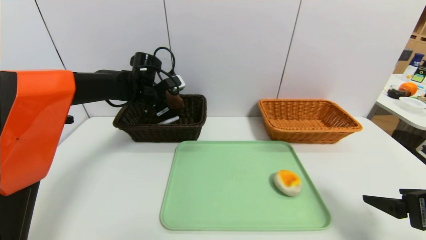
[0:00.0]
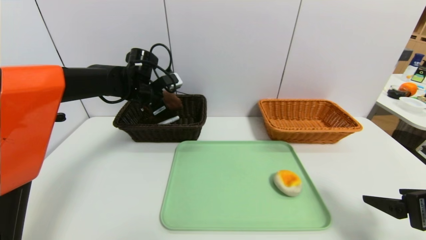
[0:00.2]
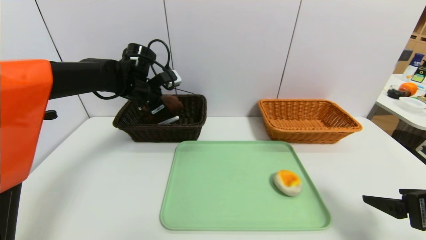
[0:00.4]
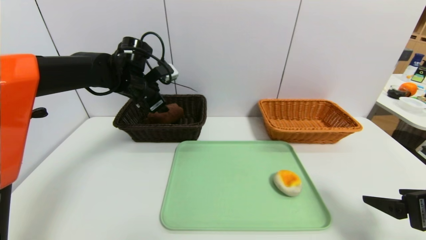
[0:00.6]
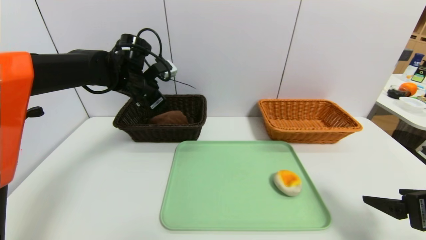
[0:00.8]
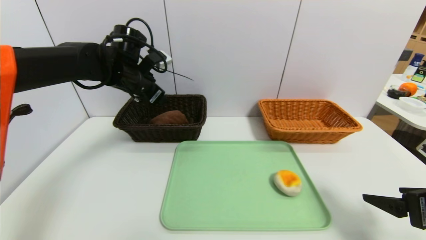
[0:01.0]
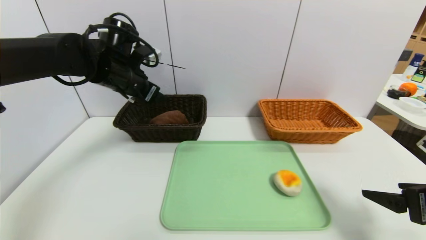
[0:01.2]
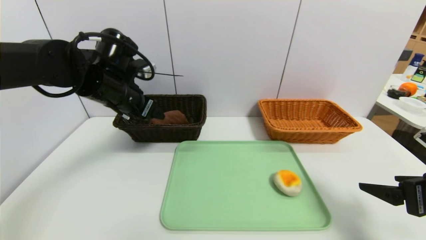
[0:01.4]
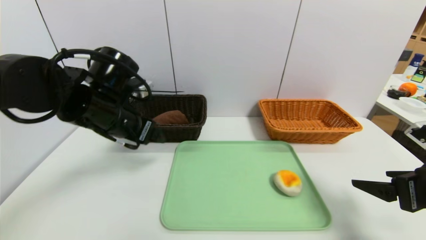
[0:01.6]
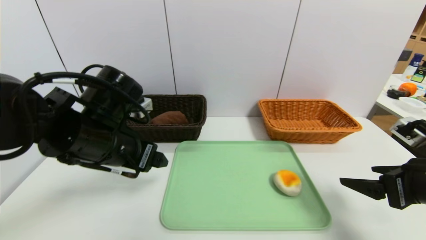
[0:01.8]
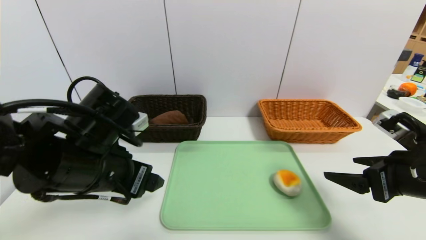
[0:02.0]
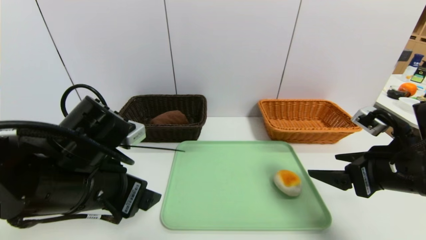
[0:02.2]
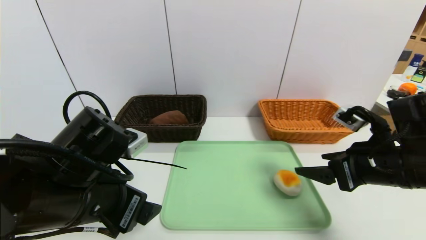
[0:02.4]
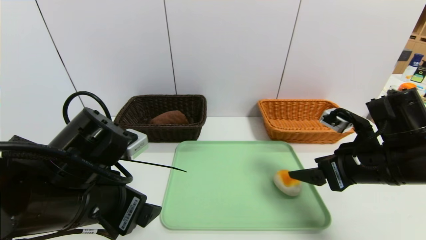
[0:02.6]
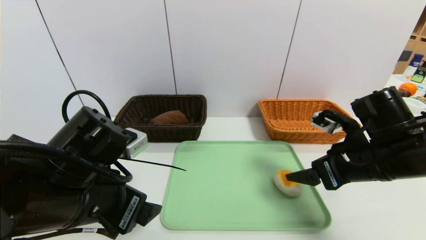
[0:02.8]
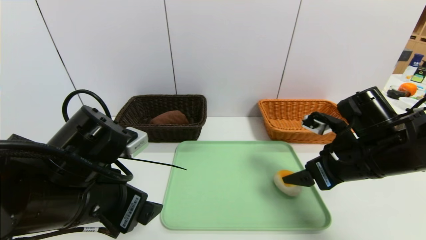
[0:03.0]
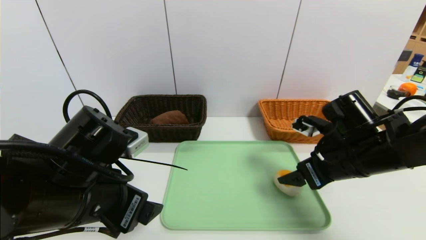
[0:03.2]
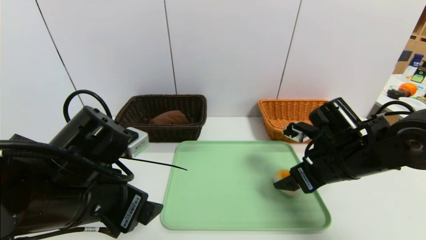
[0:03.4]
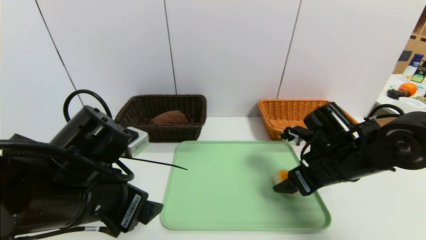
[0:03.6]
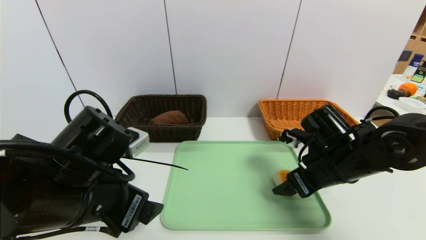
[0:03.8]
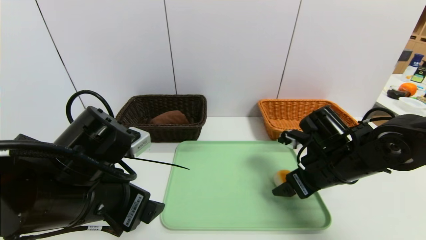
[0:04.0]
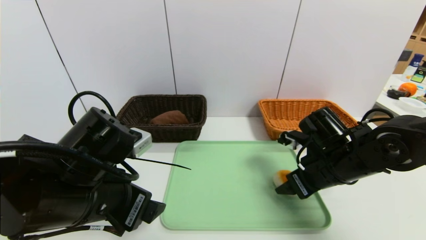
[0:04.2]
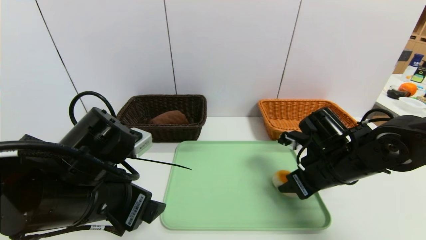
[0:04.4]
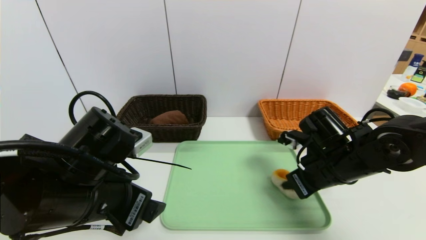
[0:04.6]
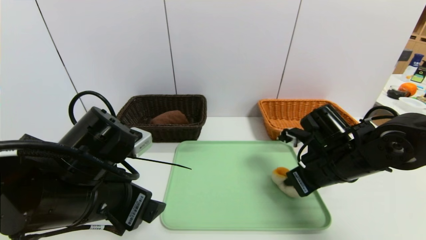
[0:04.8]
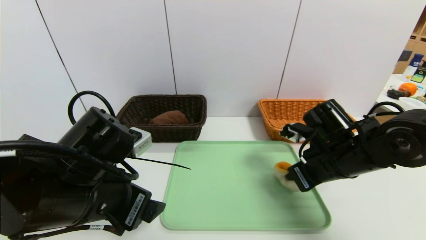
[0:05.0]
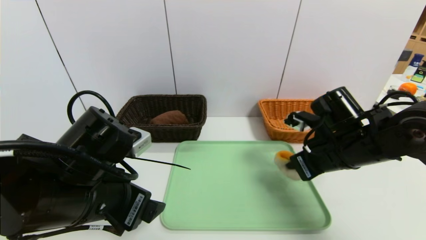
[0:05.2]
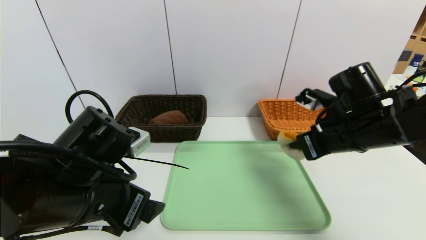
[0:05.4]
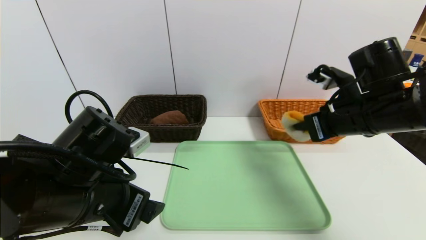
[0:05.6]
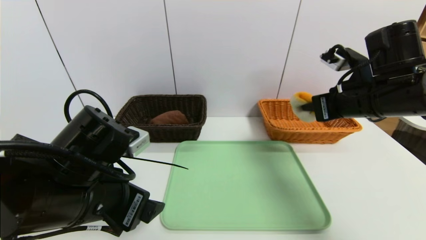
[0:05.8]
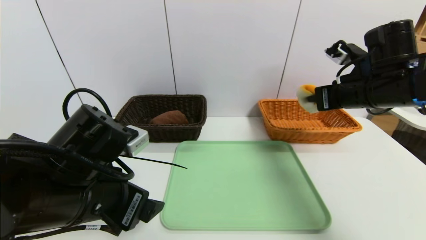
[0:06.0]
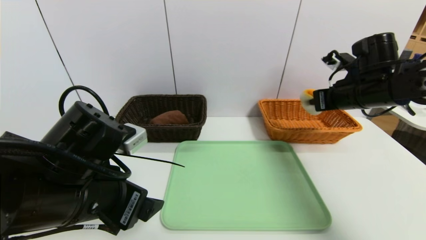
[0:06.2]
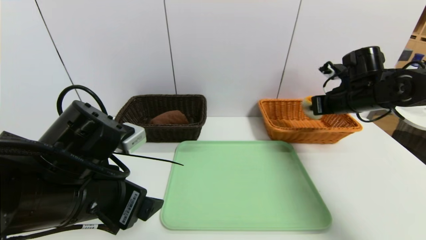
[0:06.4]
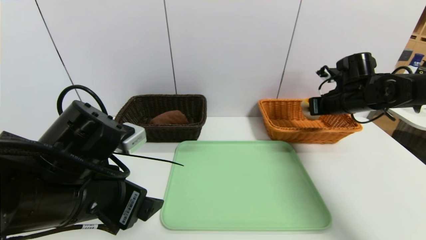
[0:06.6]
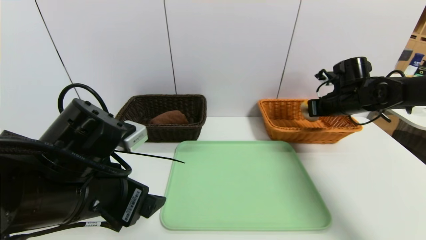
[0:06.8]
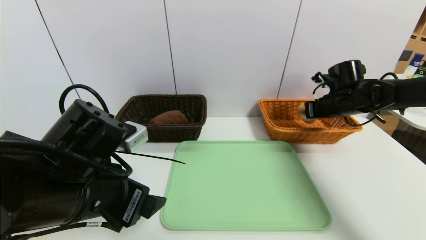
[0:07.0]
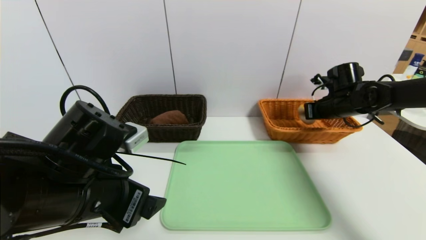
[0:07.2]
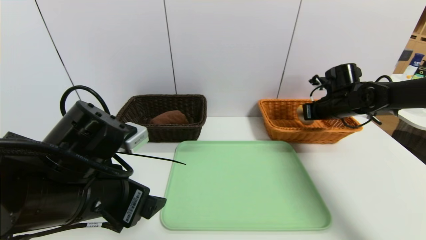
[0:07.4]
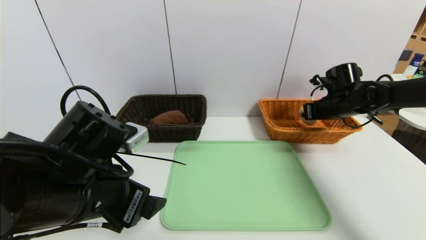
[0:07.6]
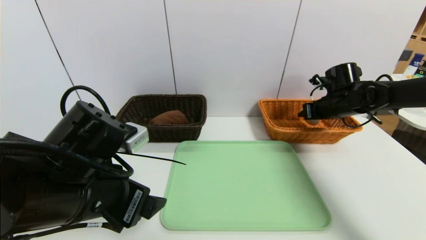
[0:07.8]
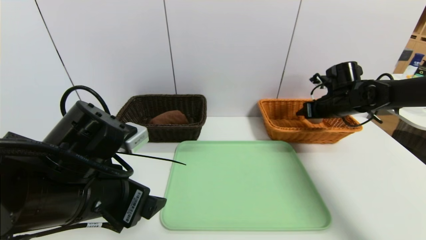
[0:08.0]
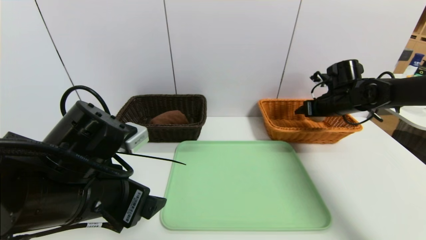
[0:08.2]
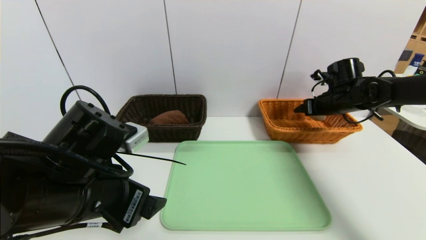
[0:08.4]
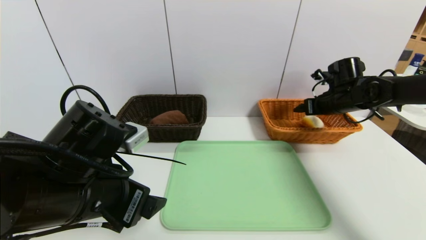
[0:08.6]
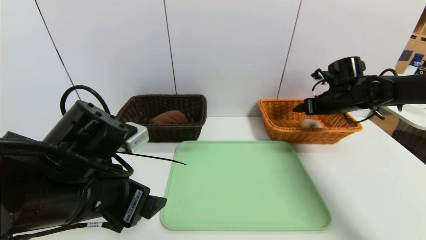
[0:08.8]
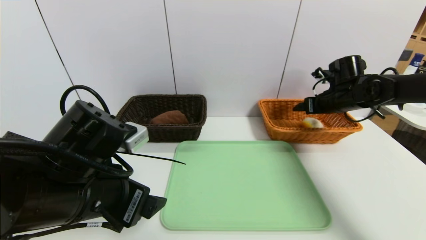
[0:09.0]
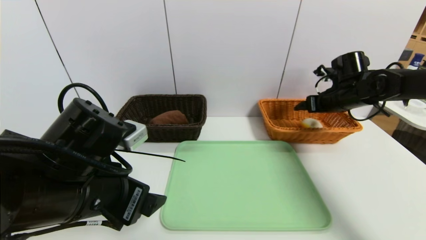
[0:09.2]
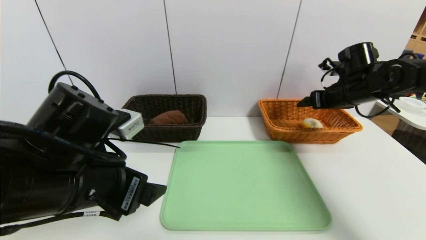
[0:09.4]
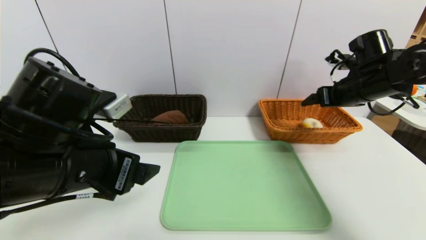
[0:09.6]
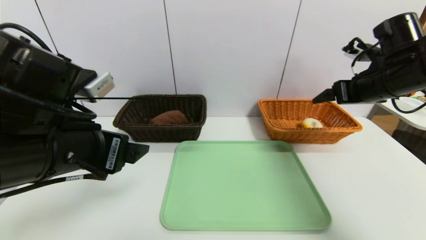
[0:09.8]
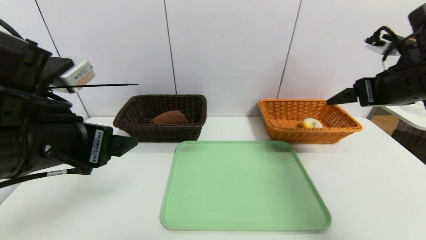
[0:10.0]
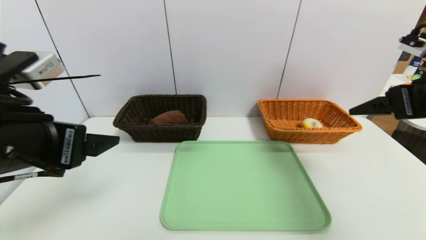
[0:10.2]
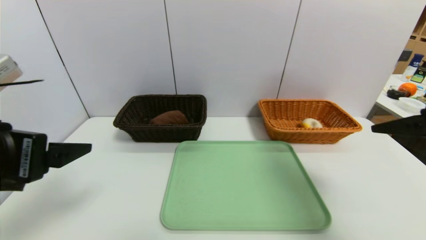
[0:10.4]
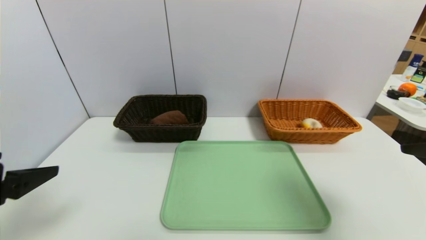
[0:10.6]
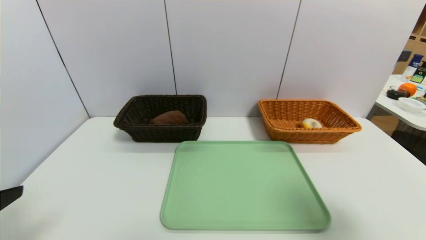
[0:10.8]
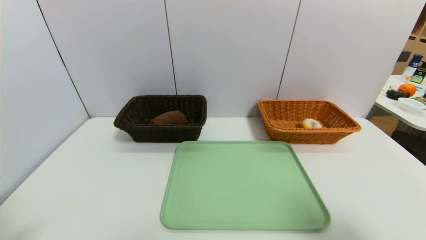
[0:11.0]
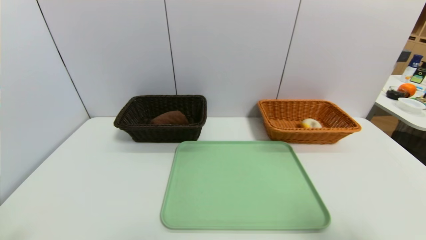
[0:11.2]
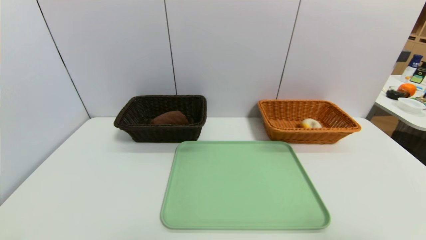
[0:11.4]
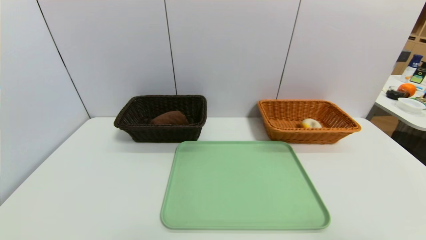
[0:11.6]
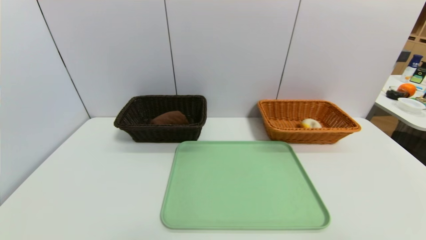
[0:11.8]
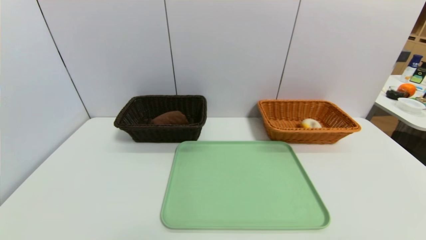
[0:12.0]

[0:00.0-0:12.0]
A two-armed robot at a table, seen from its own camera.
Task of the whole recording: place the food in the right basket with the right gripper, and place the non food items in the left basket with the left gripper.
Step, 0:01.2 to 0:09.2: Grasp the egg yolk pastry and put it in the right basket.
0:00.0 to 0:01.6: The left gripper goes roughly 20 cm backward, and opens.
0:01.6 to 0:03.0: The left gripper heads backward, covering roughly 10 cm; the right gripper goes approximately 15 cm to the left and forward.
0:03.0 to 0:04.4: The right gripper ends up approximately 5 cm from where it was, and closes its fingers.
0:04.4 to 0:06.0: The right gripper goes approximately 15 cm upward, to the right and forward, and closes.
0:06.0 to 0:07.6: The right gripper shifts some 15 cm forward and downward.
0:07.6 to 0:09.0: The right gripper opens.
0:09.0 to 0:10.4: The right gripper heads backward and upward, covering roughly 30 cm. Meanwhile the left gripper shifts roughly 10 cm to the left and upward.
0:10.4 to 0:12.0: The right gripper is displaced backward by approximately 20 cm. Meanwhile the left gripper goes roughly 20 cm backward, downward and to the left.

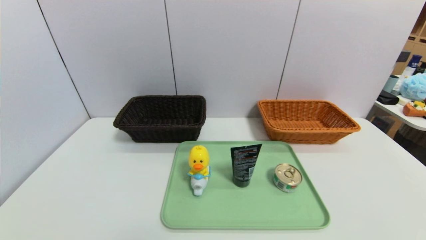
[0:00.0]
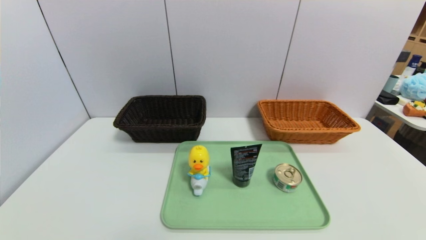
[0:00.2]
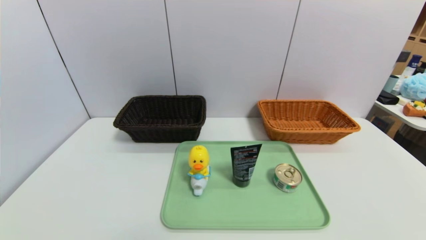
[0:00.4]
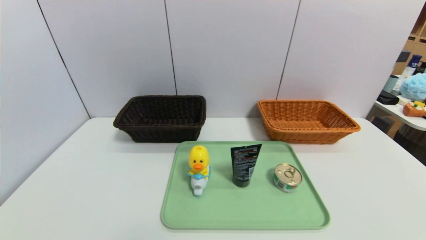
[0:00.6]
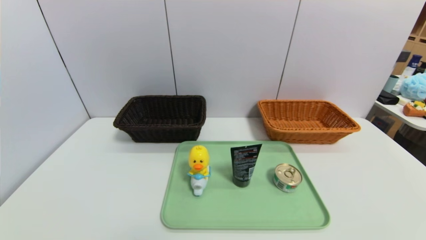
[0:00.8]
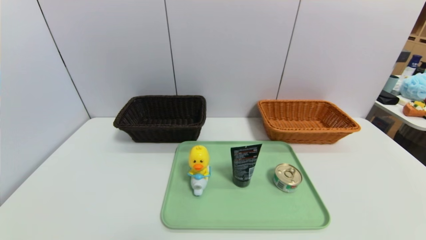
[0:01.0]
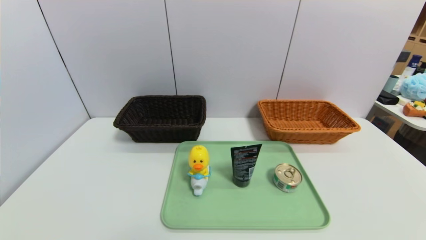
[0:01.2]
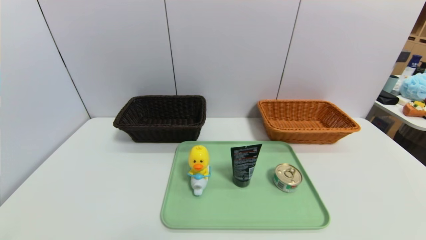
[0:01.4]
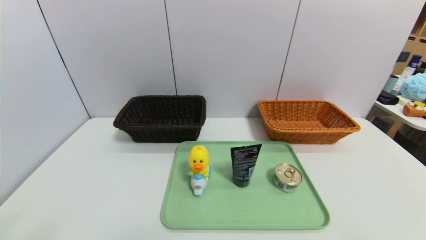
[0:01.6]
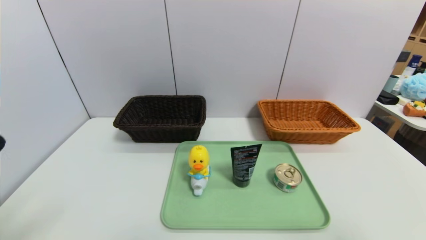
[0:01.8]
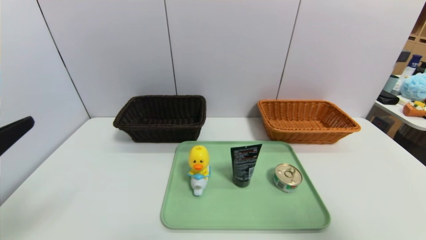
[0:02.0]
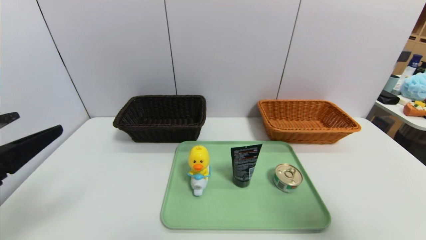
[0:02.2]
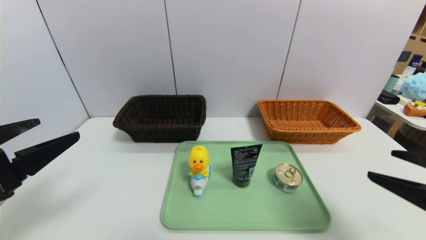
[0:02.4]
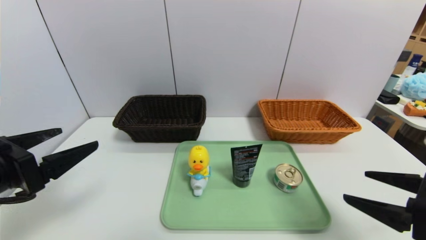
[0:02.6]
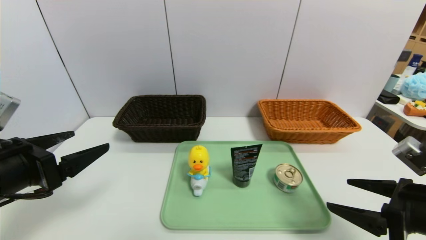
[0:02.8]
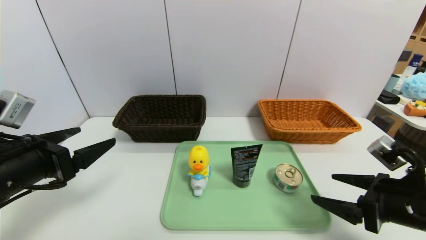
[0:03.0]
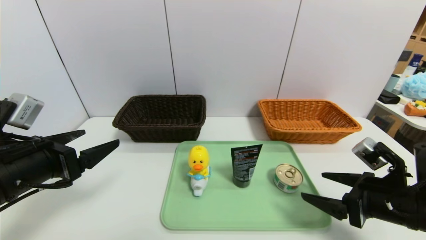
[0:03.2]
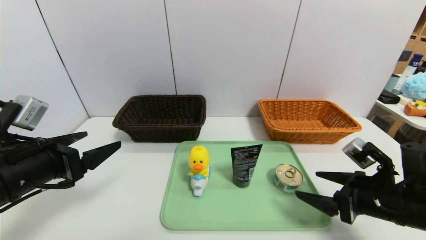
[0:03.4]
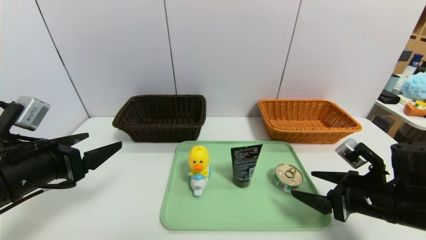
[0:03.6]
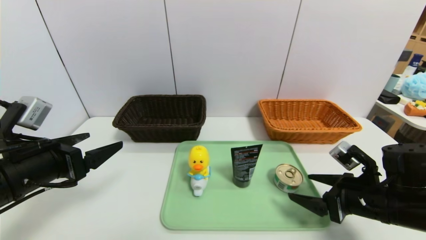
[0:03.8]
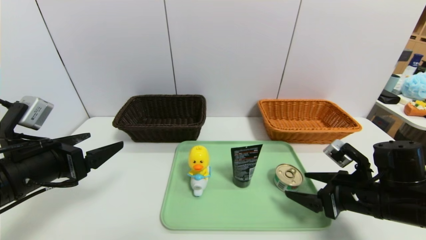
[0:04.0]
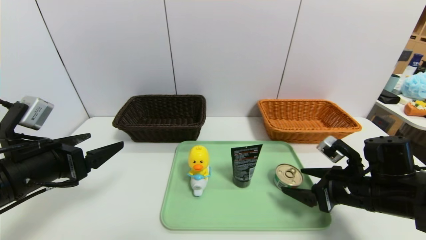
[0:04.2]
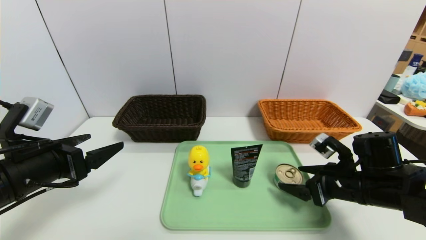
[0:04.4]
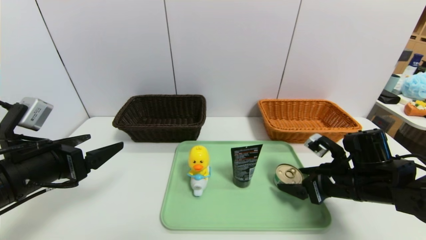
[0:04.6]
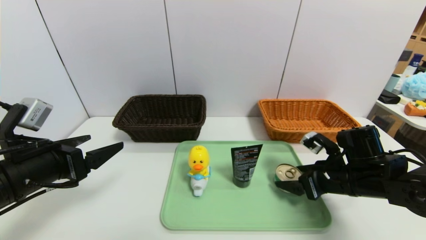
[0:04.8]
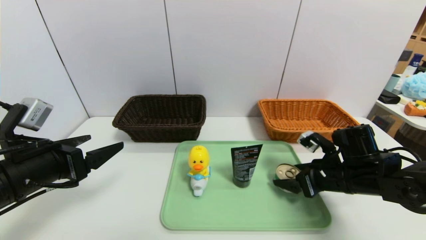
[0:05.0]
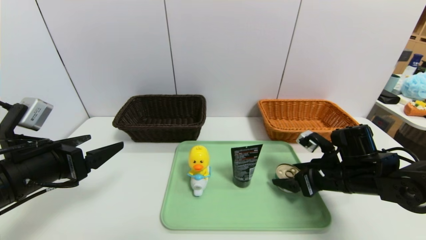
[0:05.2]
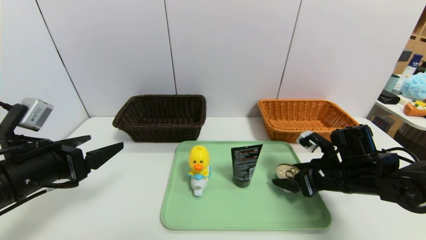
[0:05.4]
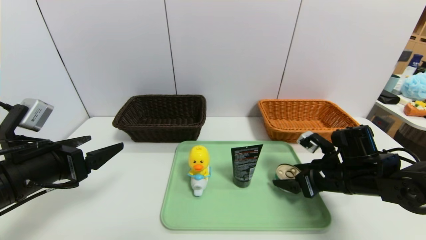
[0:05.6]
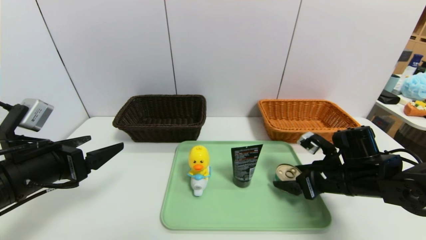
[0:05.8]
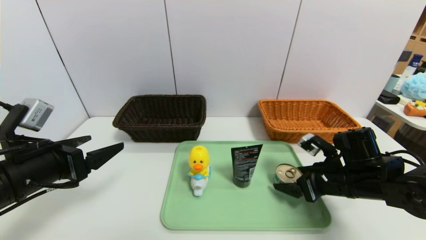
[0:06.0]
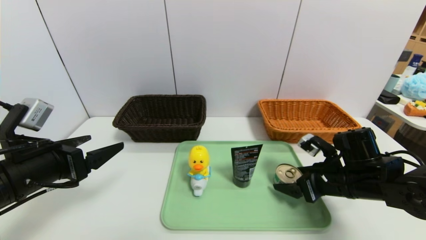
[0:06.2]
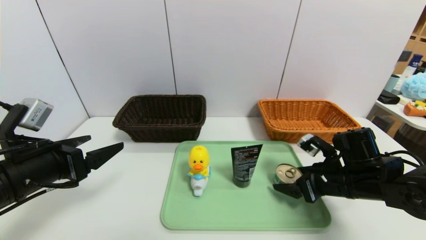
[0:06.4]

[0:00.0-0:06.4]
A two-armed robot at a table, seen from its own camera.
Task of the whole recording: place the food in the right basket with the right gripper, and place the non food items in the left basket with the left gripper.
0:01.6 to 0:03.2: The right gripper travels forward and downward by approximately 20 cm. Meanwhile the left gripper moves forward, some 15 cm.
0:03.2 to 0:04.8: The right gripper goes roughly 10 cm forward.
0:04.8 to 0:06.4: Both grippers stay put.
